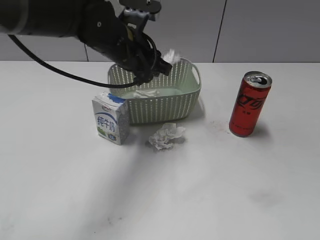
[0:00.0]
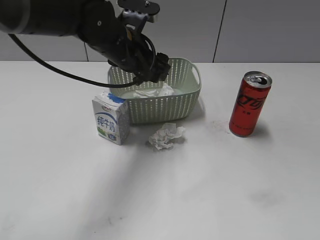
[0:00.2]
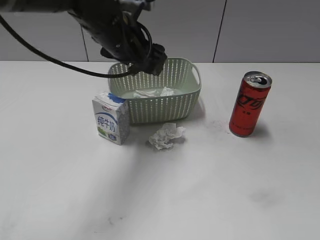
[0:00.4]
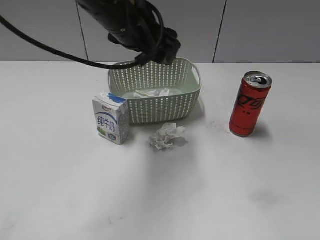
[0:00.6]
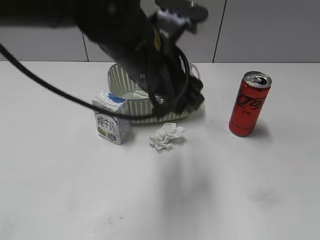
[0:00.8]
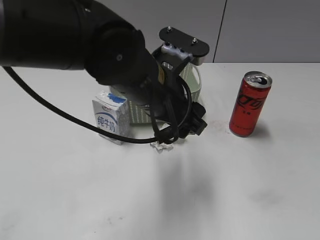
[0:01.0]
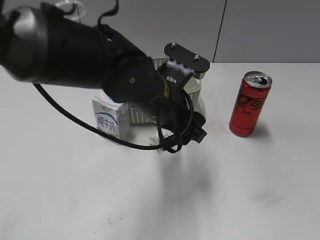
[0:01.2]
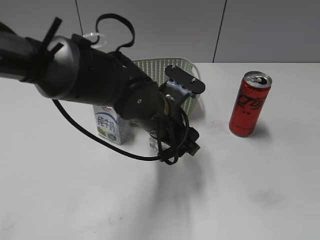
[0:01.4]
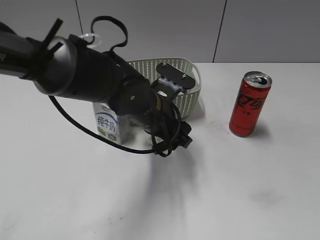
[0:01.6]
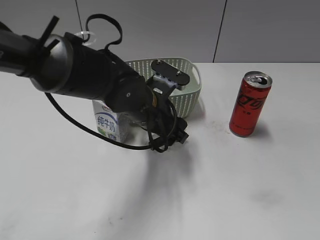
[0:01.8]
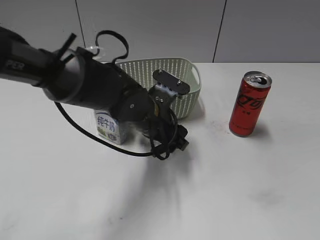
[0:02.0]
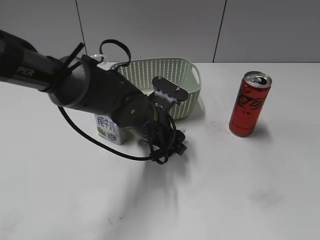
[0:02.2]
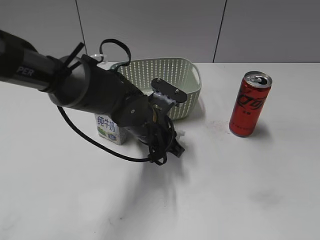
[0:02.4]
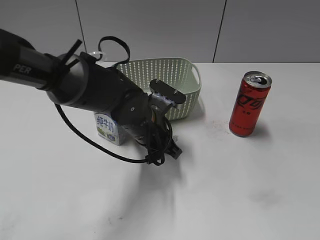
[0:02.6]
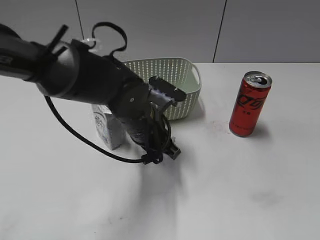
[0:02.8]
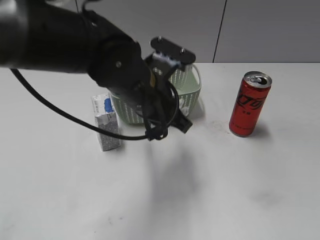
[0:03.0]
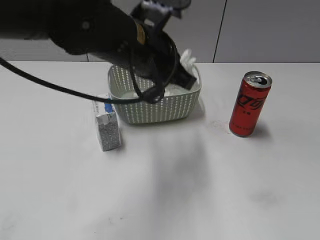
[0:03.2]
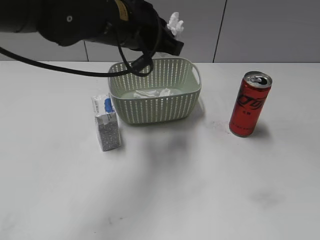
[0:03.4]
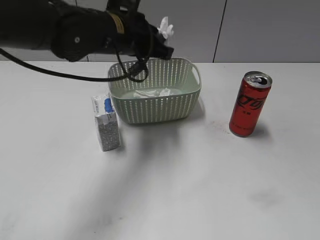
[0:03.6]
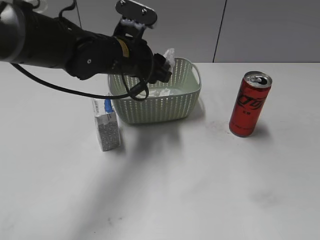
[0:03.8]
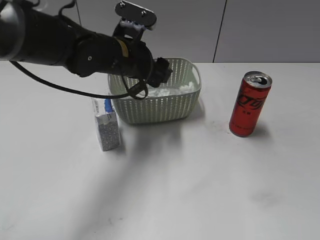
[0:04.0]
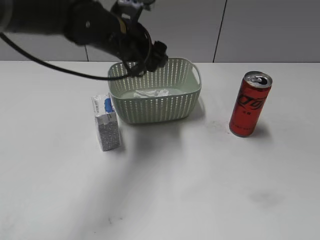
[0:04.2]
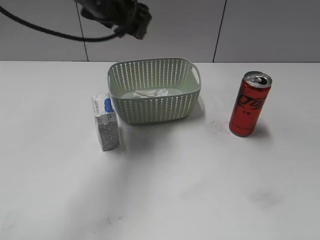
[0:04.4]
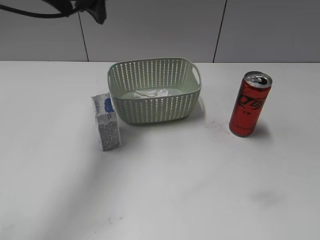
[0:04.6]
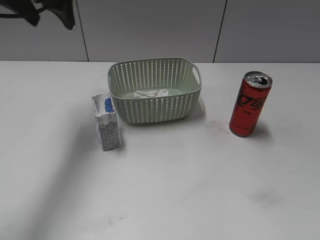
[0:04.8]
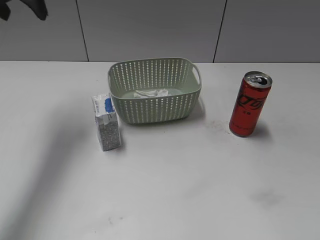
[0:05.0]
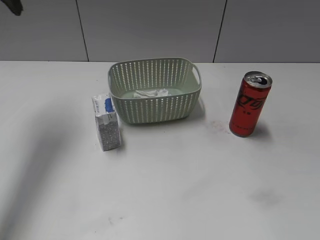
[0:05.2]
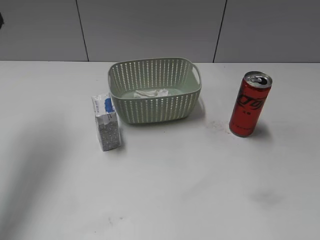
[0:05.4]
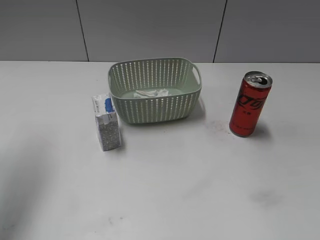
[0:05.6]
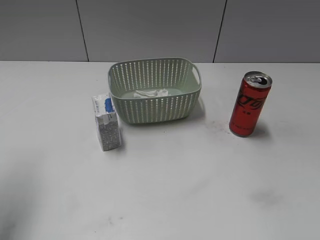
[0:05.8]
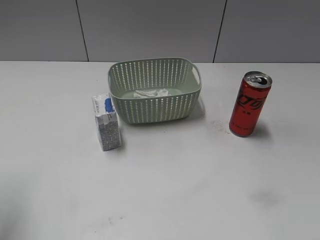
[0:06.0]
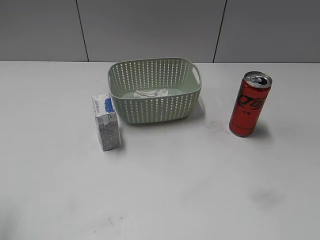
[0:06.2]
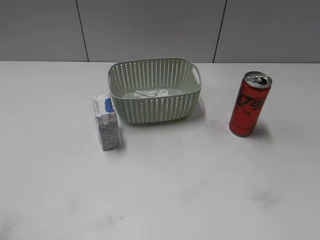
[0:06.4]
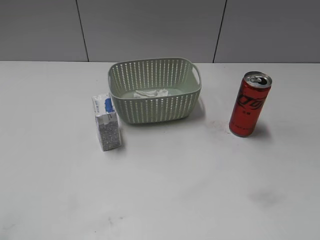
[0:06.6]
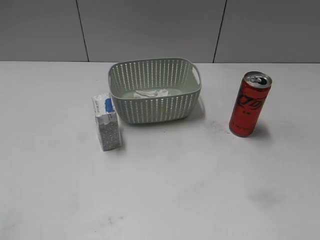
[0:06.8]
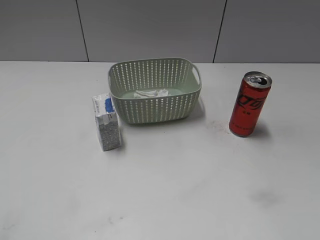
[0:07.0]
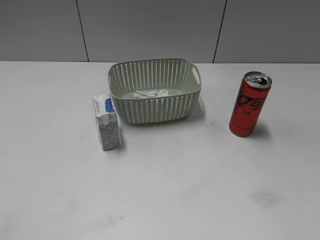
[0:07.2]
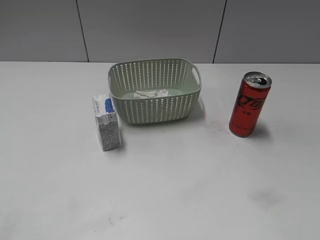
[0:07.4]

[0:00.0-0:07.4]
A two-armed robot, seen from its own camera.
Step, 0:00.6 to 0:02.6: Grasp the waste paper with left gripper.
Step, 0:02.8 to 0:04.0: Place the waste paper in the basket with left gripper.
0:00.0 to 0:01.4: The left gripper goes approximately 10 cm backward, downward and to the right, and opens.
0:01.4 to 0:03.0: The left gripper closes up.
0:03.0 to 0:04.4: The left gripper goes up and down, some 10 cm each way, reversing 2 times, and opens.
0:04.4 to 0:06.0: The left gripper is displaced to the left and backward by about 30 cm.
0:06.0 to 0:07.4: The left gripper moves backward, about 20 cm.
